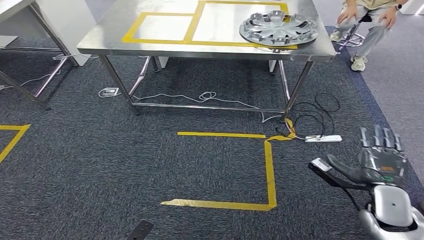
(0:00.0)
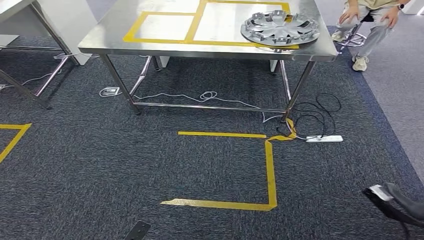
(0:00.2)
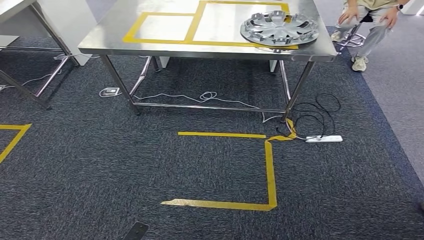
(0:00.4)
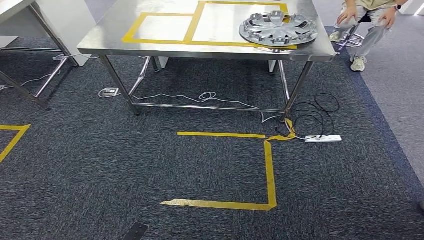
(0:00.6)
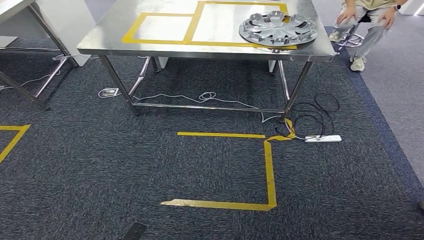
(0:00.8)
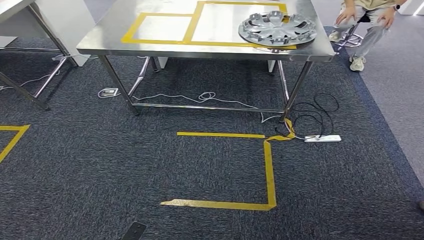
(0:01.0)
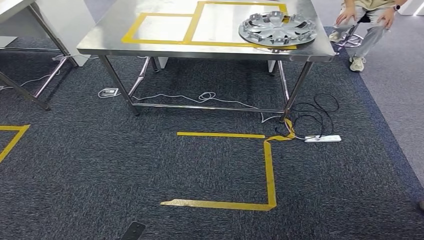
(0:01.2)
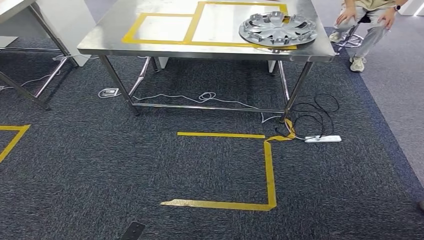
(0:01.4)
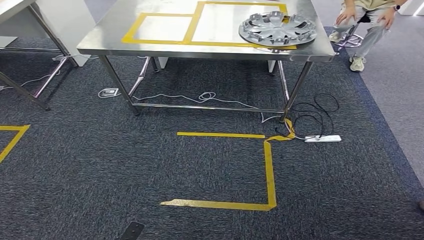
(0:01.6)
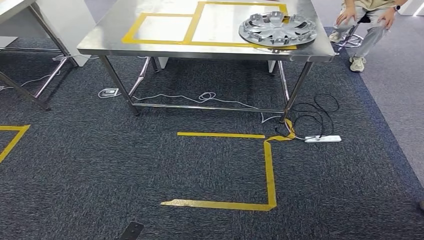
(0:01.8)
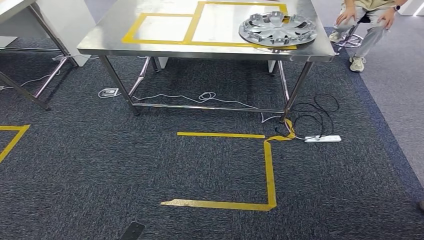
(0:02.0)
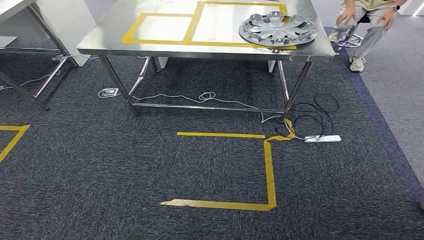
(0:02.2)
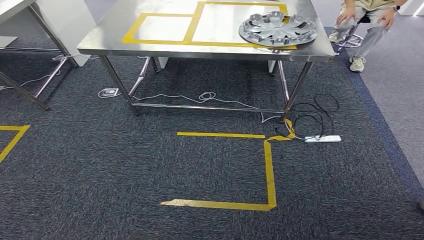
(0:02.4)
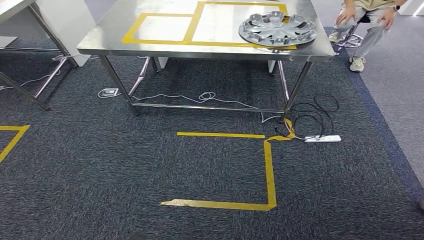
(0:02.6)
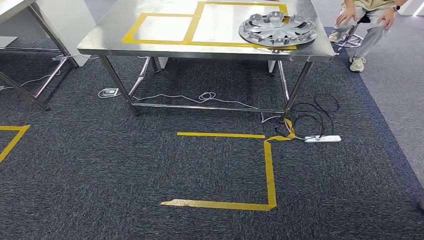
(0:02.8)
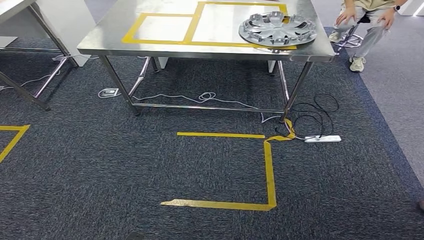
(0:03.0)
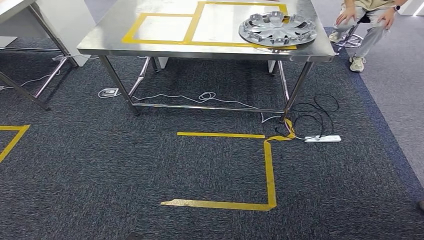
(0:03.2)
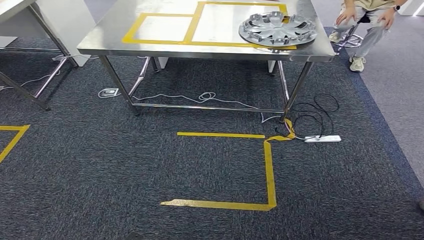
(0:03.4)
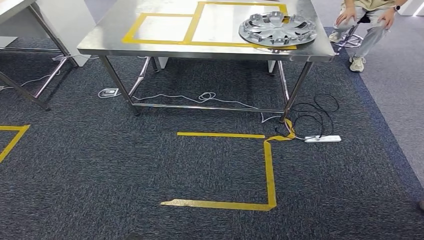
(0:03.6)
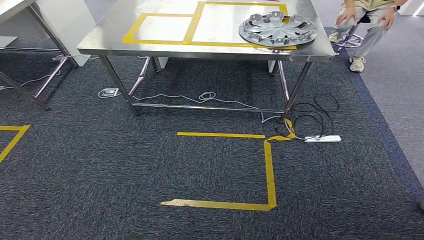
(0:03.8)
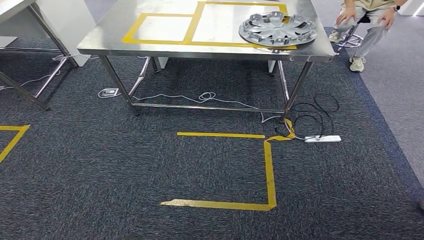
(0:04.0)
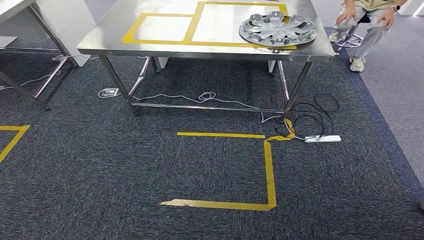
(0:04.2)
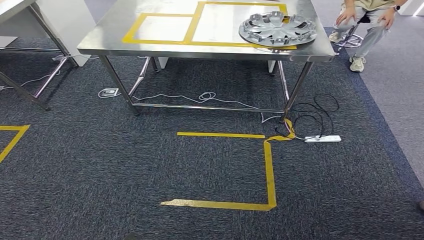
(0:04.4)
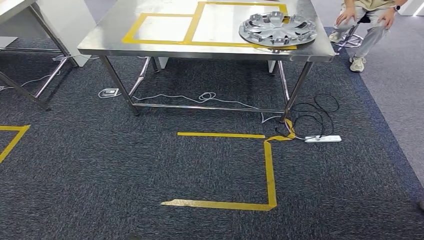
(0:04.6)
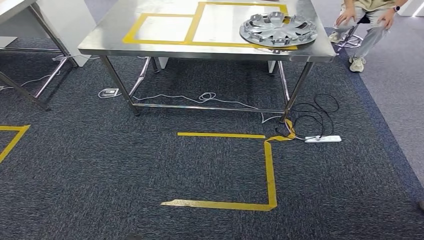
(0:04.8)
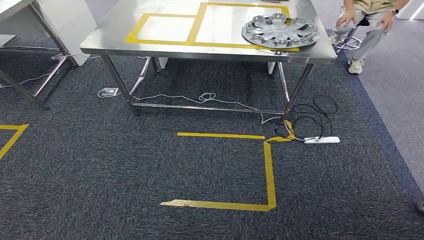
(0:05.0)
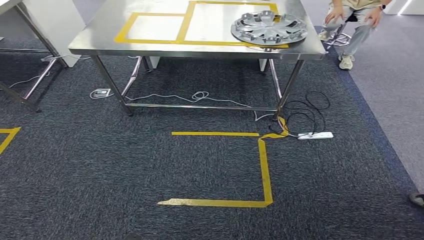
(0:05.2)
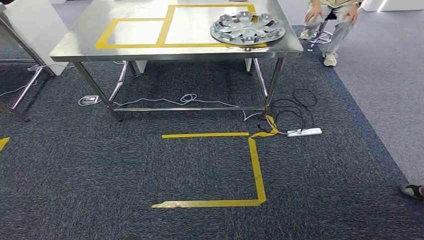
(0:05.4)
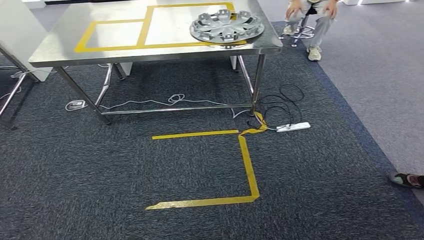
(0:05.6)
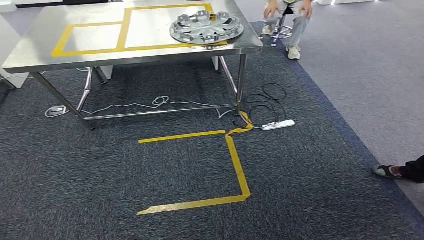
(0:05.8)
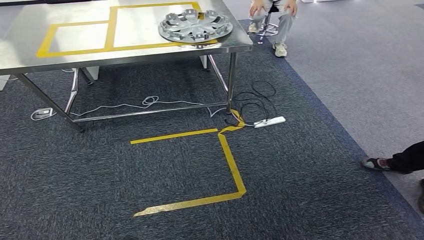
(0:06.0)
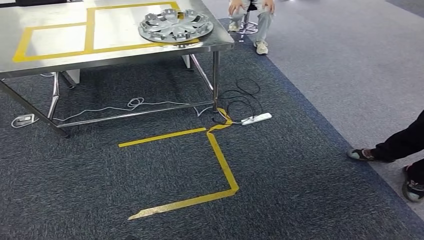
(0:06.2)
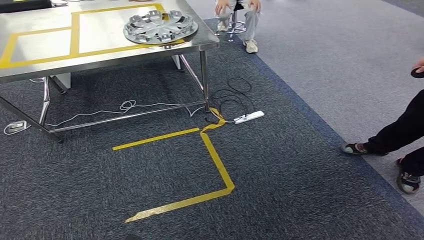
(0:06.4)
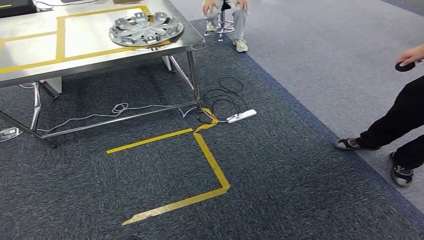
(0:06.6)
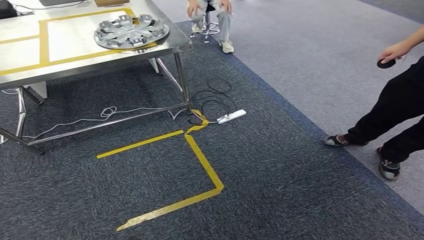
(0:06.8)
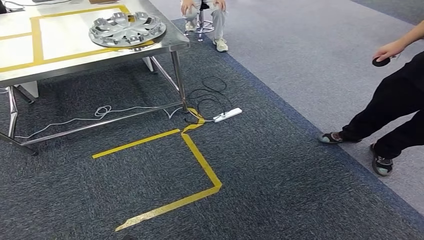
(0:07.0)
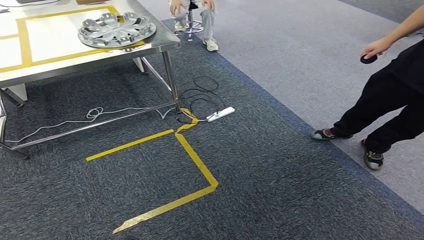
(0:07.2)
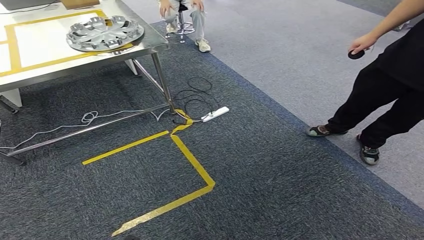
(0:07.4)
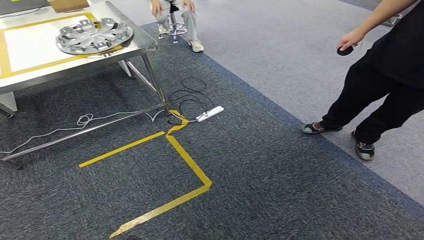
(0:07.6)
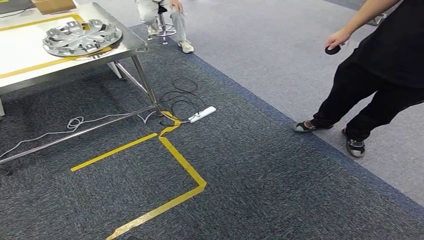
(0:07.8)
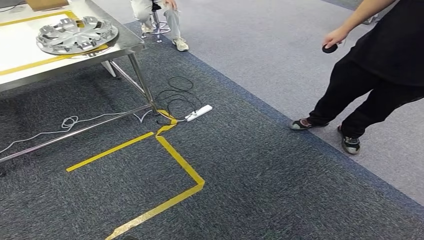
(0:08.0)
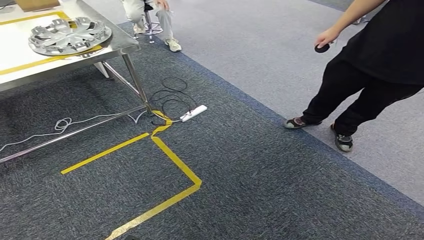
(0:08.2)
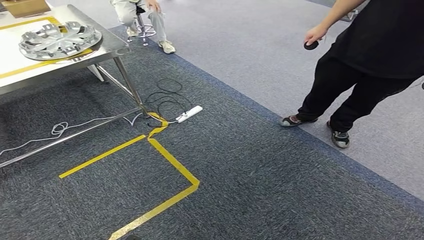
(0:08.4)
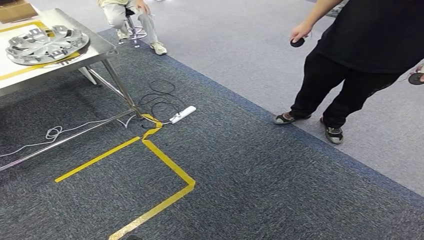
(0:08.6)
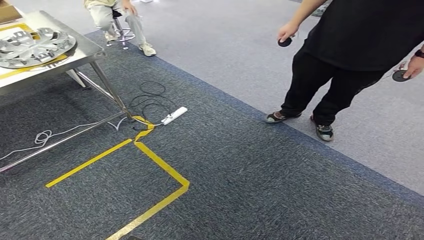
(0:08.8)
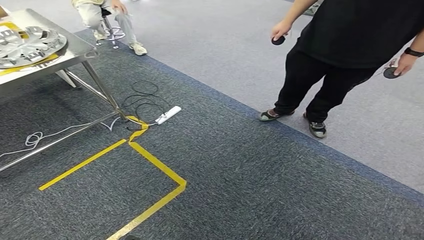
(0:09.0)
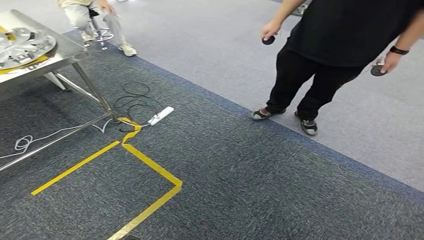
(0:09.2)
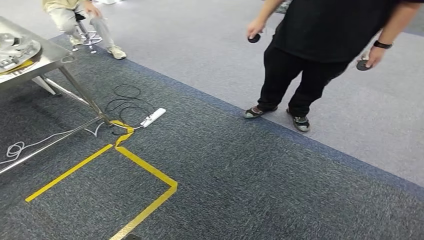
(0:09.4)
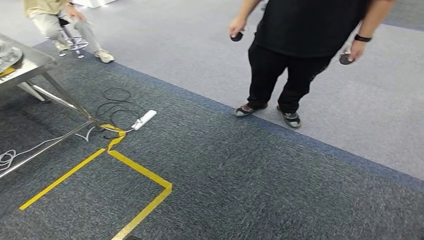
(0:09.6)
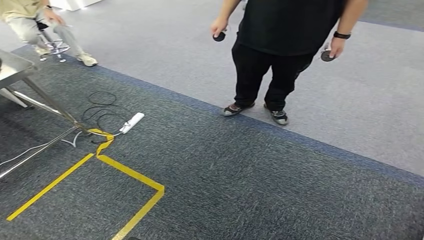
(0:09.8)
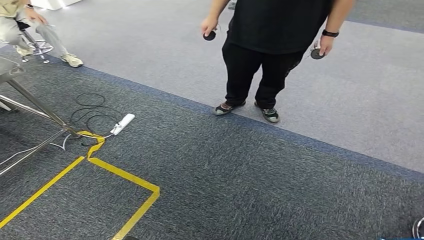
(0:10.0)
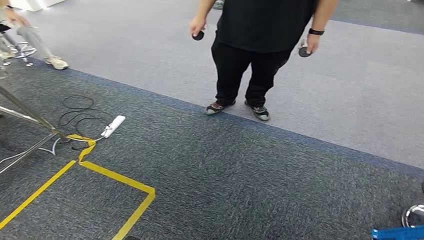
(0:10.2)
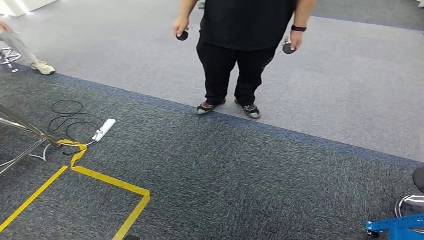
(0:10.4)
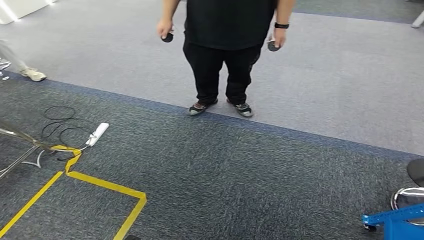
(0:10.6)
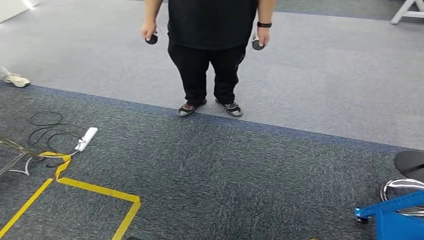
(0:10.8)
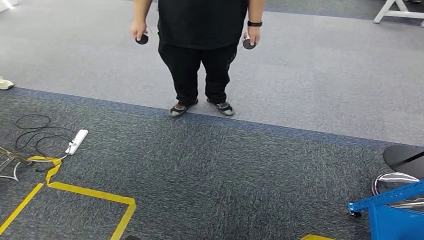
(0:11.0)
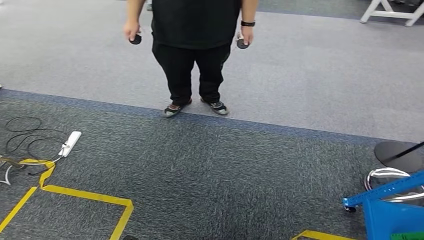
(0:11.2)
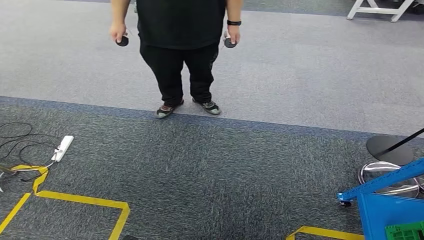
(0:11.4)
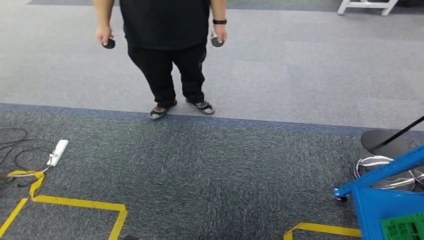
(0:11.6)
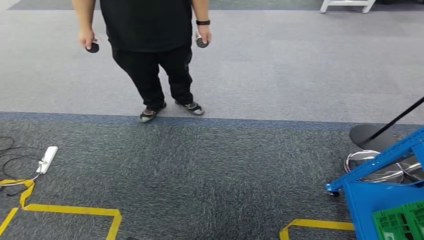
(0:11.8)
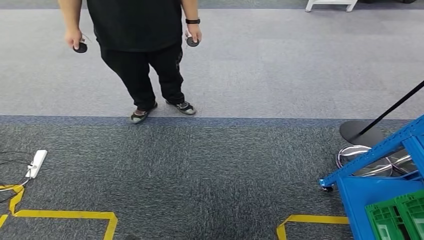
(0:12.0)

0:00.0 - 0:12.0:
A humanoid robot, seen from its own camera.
0:00.0 - 0:01.6: The right hand travels backward and downward by roughly 40 cm.
0:03.0 - 0:04.4: Both hands stay put.

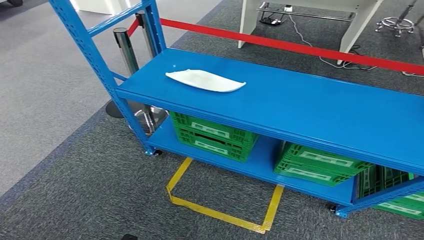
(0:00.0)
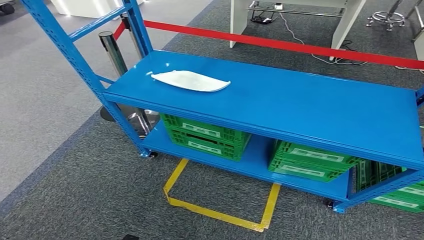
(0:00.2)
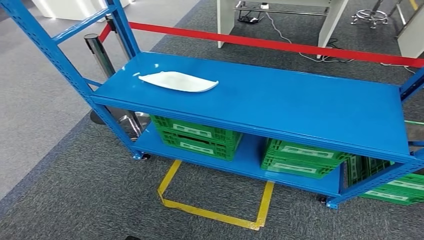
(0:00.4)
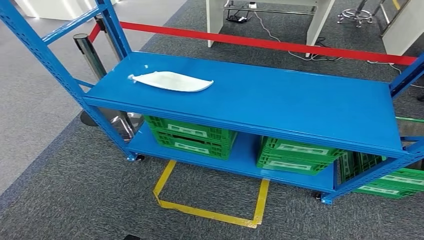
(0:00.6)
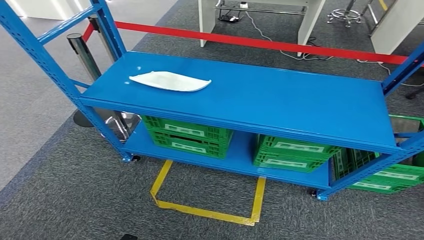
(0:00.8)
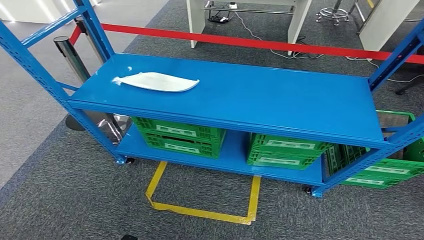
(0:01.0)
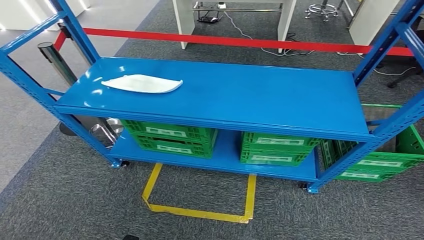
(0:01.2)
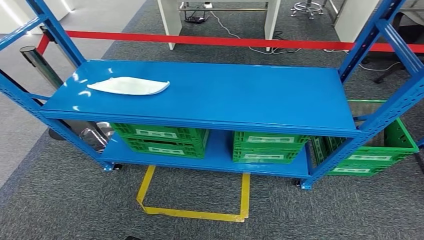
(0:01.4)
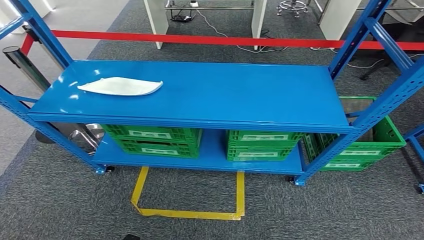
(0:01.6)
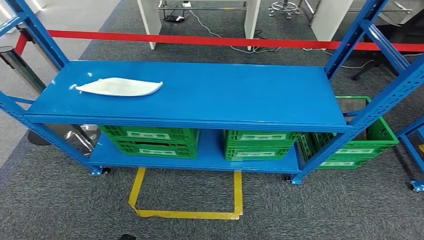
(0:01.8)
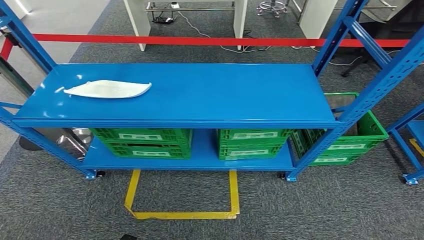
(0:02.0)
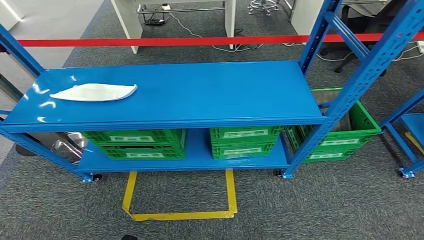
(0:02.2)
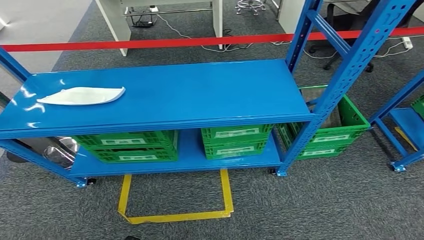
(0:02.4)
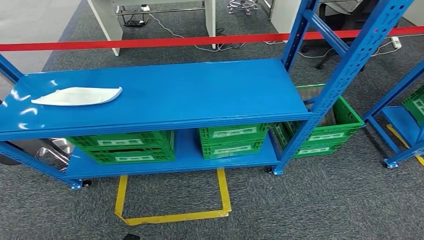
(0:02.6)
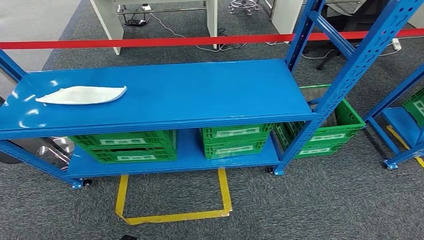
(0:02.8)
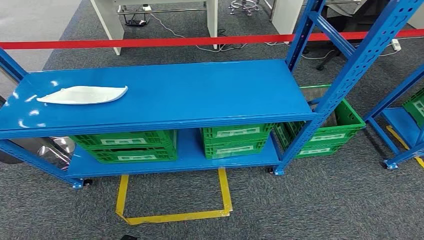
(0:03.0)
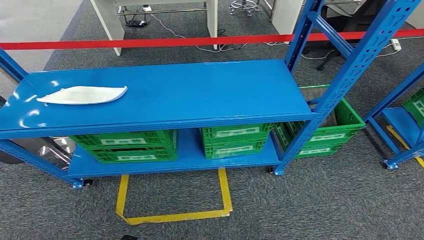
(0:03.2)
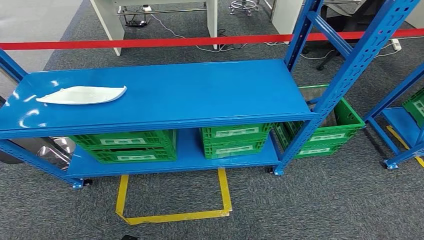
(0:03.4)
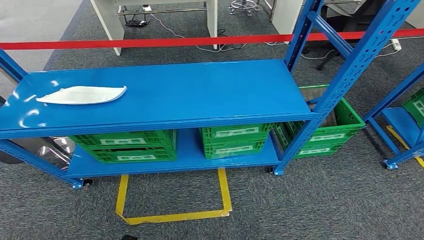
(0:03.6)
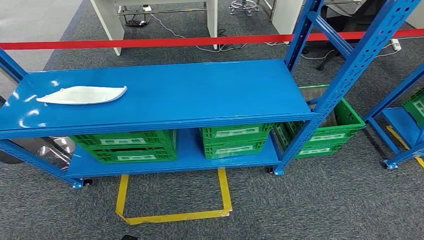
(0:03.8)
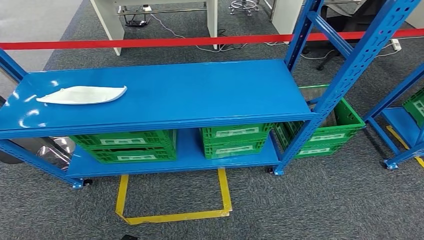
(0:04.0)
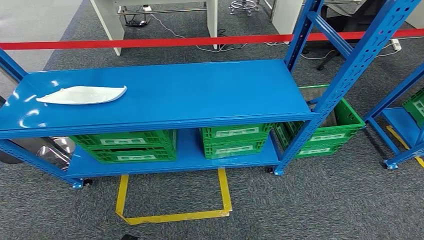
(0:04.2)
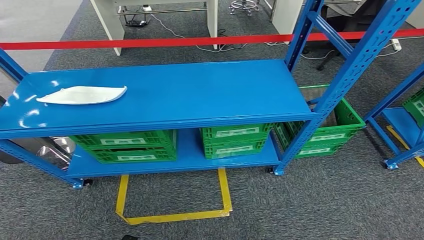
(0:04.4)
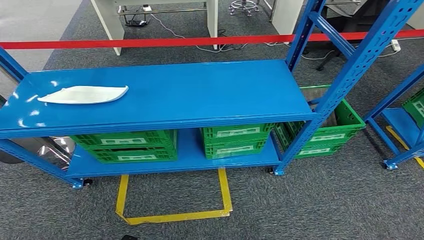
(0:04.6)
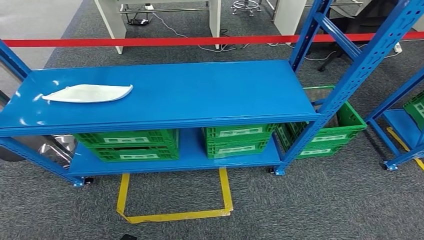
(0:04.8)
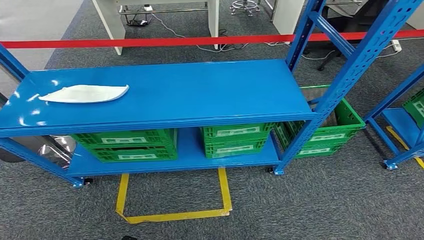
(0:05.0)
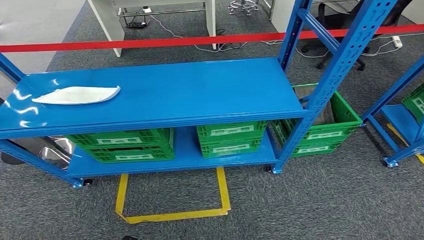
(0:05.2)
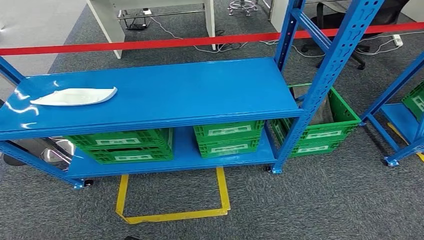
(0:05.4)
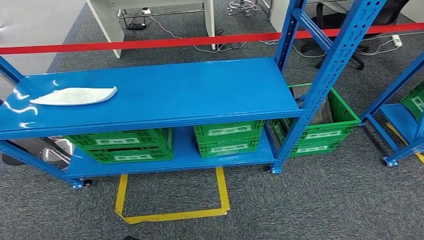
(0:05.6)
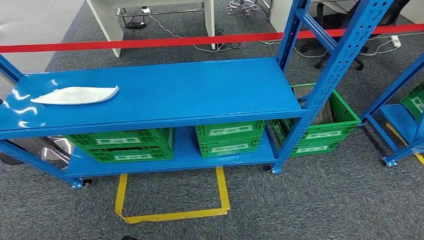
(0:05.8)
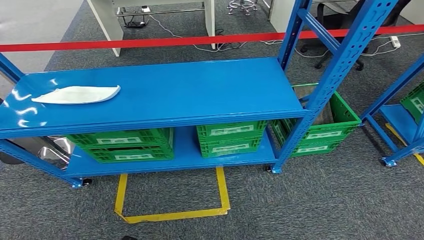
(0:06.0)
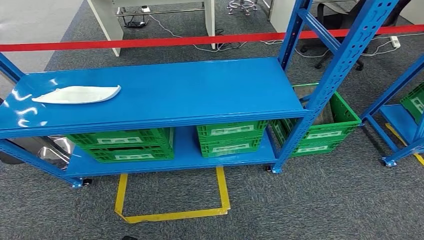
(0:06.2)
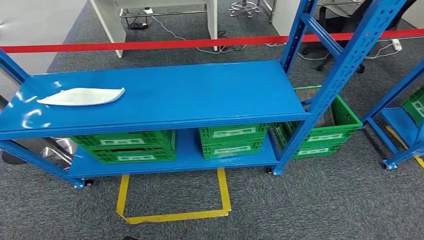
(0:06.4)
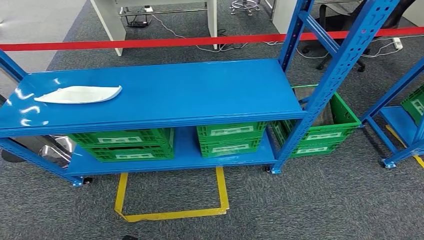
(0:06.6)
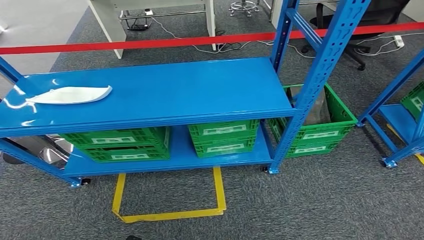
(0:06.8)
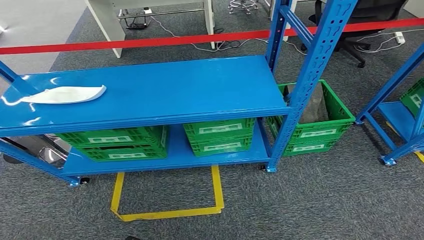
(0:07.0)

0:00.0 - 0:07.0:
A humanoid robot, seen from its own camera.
Step, 0:00.0 - 0:07.0: Move to the initial position of the workbench.
0:02.8 - 0:04.2: Neither hand changes place.
0:04.2 - 0:05.6: Neither hand changes place.
0:05.6 - 0:07.0: Both hands stay put.
